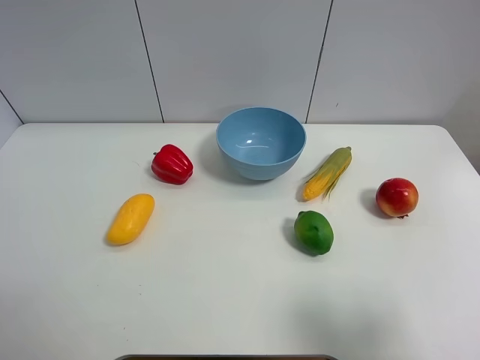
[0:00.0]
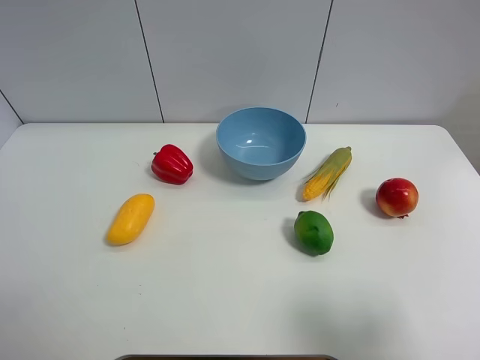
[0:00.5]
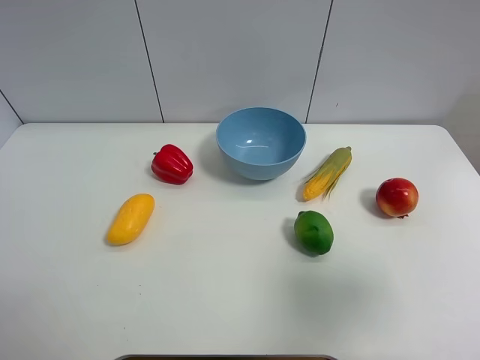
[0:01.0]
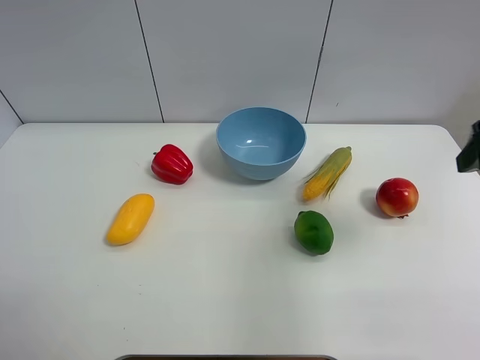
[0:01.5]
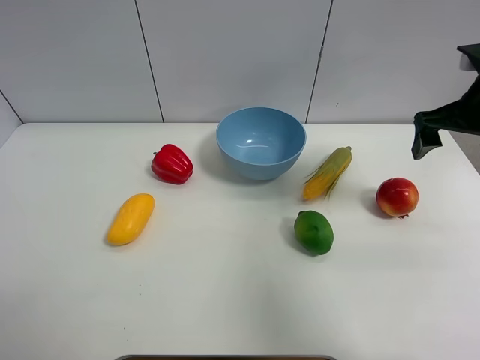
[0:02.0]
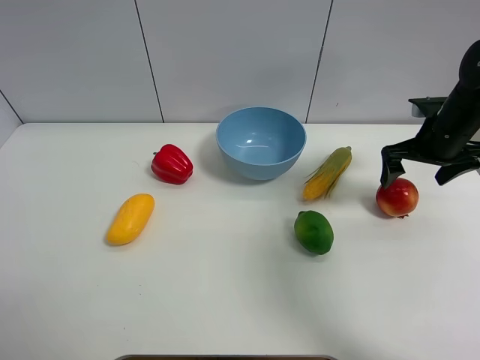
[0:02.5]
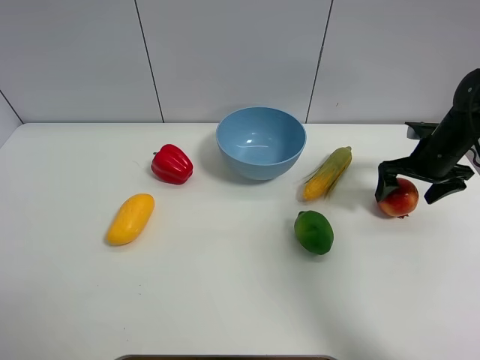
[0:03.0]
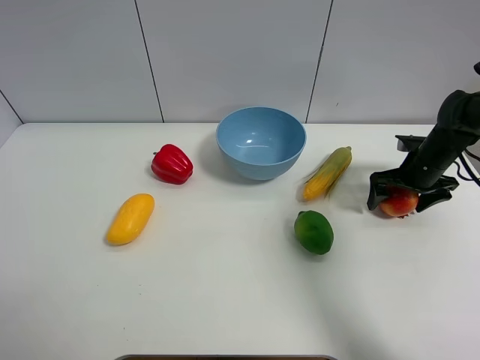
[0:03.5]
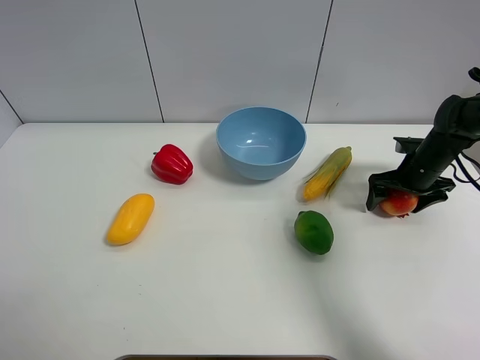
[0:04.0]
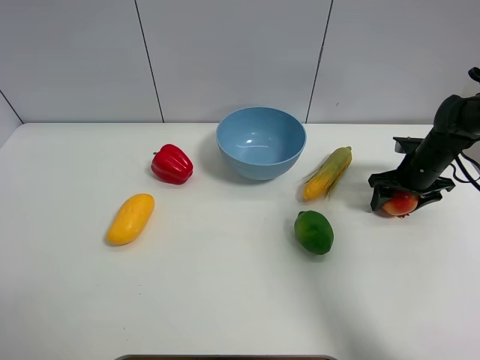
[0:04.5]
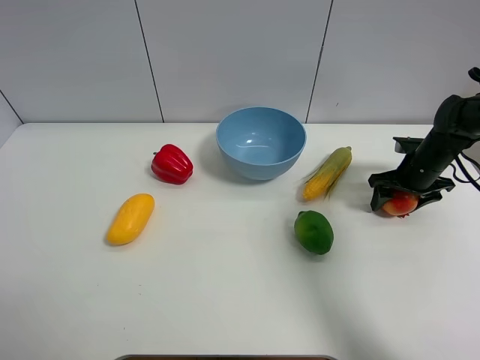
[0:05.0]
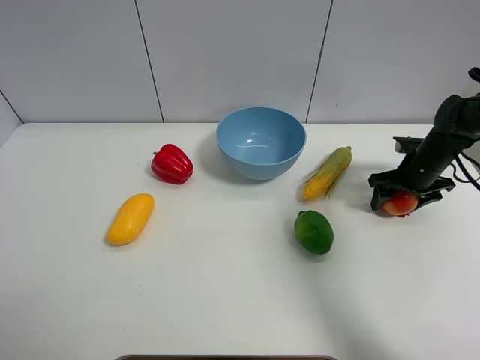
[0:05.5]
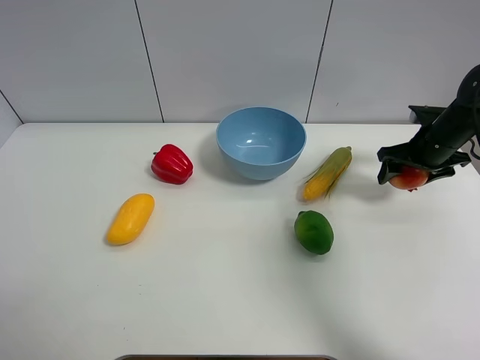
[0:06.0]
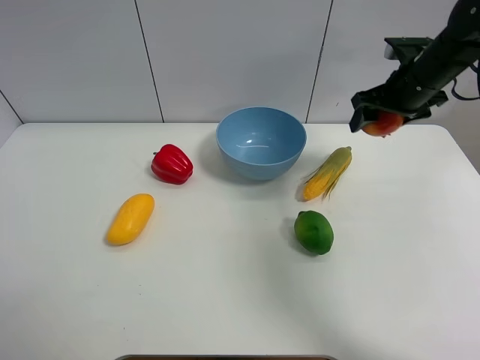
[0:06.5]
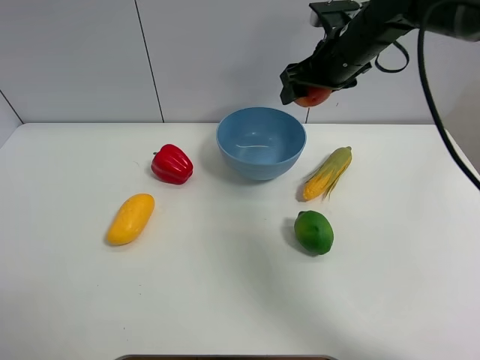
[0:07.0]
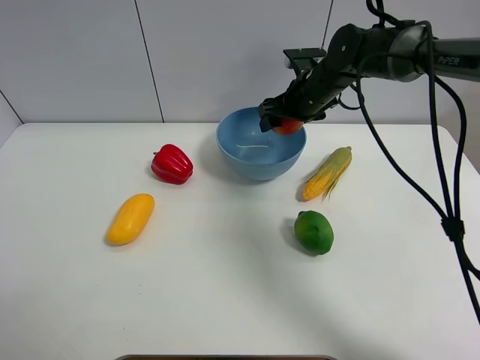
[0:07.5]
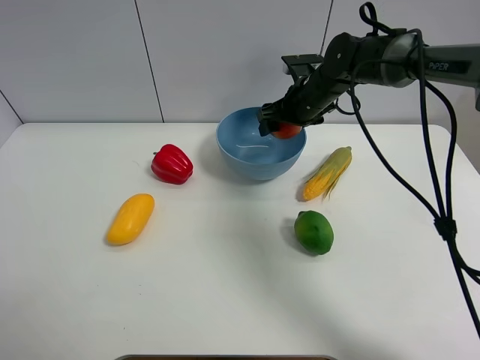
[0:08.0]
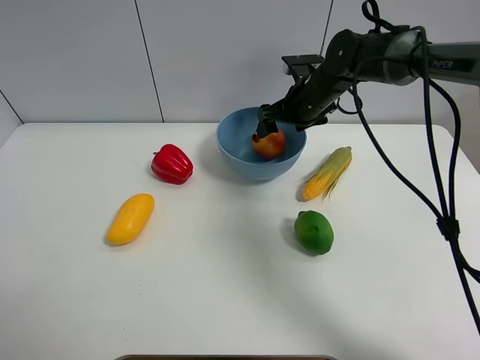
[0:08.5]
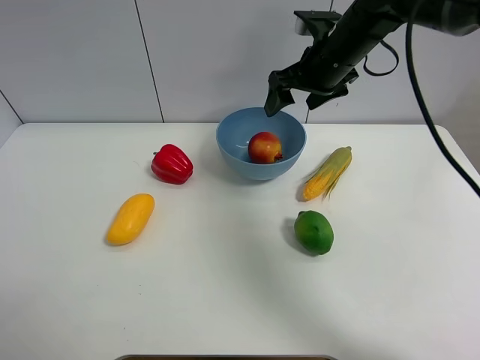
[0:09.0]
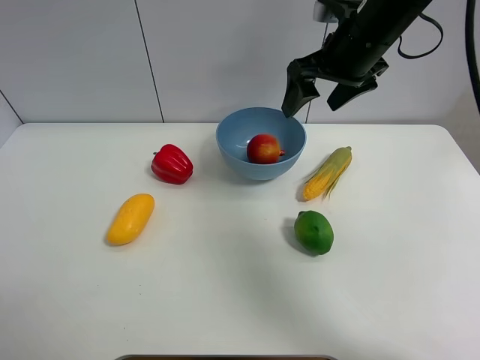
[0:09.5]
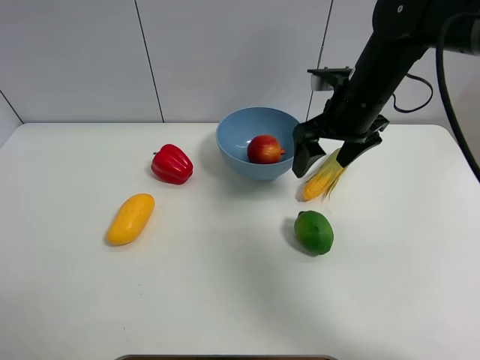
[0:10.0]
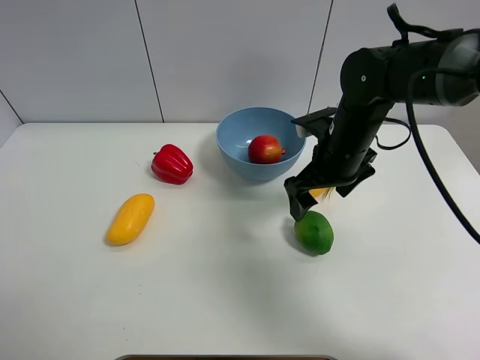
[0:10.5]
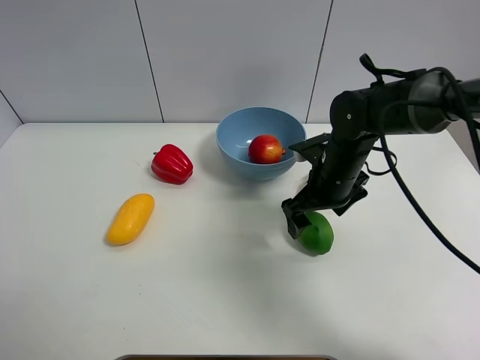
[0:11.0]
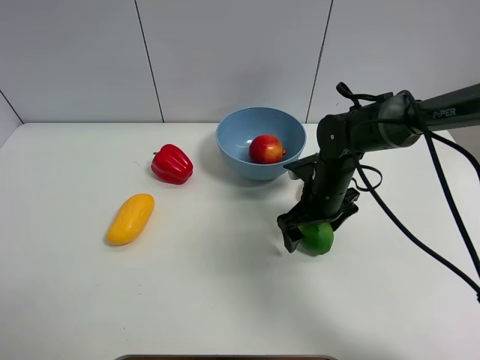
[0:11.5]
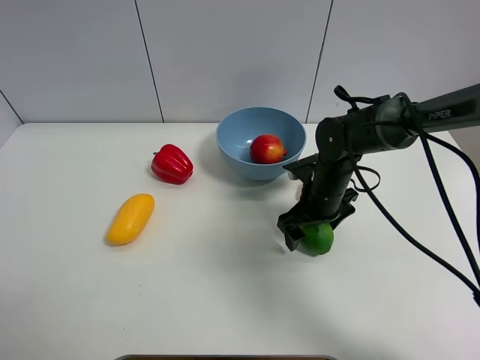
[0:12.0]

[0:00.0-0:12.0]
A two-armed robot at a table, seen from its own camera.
Task of the whole recording: Put the three fruits on the table into a bowl.
Step, 0:00.0 to 0:04.5: Grasp the pomegranate with right gripper.
Step, 0:05.0 to 0:08.0: Place the pomegranate in the blue bowl with right gripper.
0:00.0 to 0:02.0: The right gripper is displaced forward by roughly 30 cm.
0:02.0 to 0:04.0: The right gripper travels downward by approximately 20 cm.
0:04.0 to 0:06.0: The right gripper shifts about 5 cm upward, and closes.
0:06.0 to 0:08.0: The right gripper travels to the left by some 20 cm.
0:08.0 to 0:10.0: The right gripper goes approximately 15 cm backward and upward.
0:10.0 to 0:12.0: The right gripper goes about 15 cm downward.

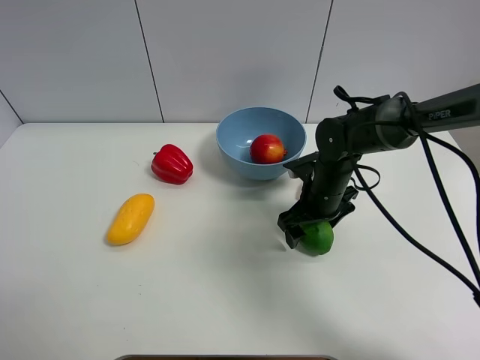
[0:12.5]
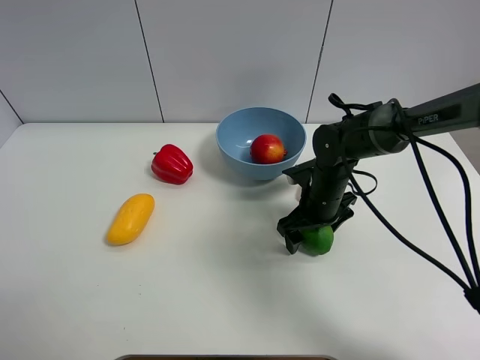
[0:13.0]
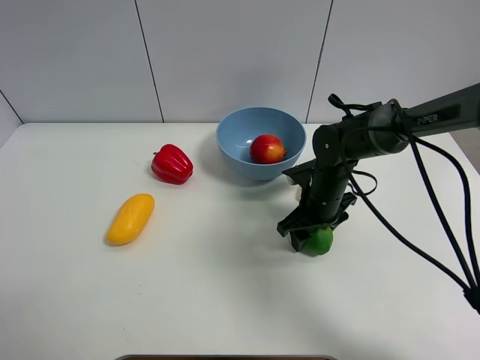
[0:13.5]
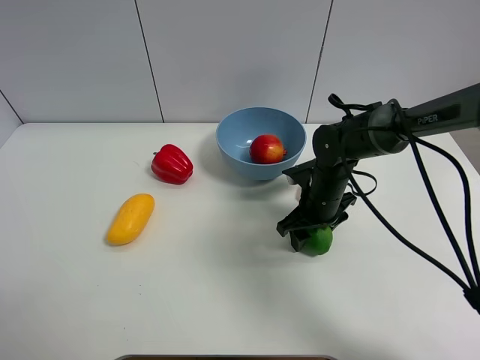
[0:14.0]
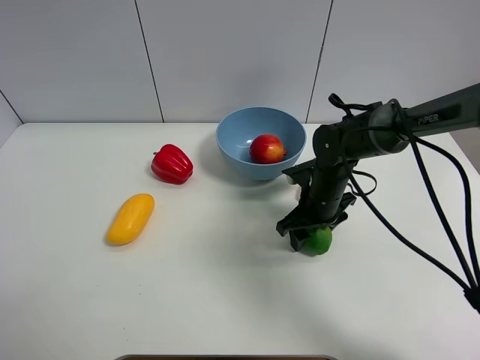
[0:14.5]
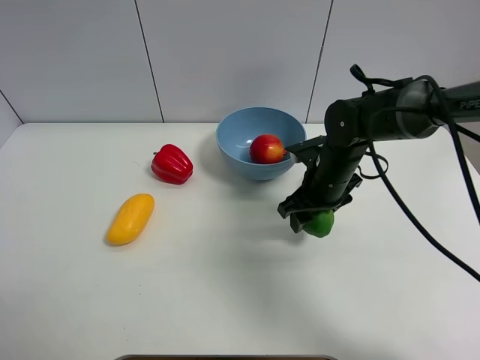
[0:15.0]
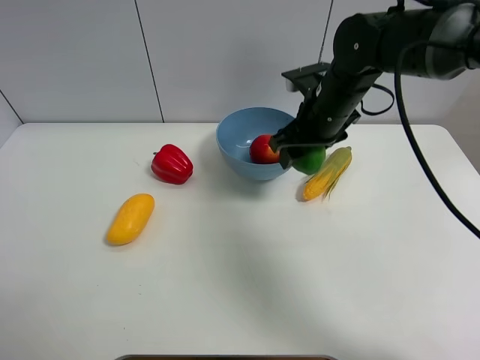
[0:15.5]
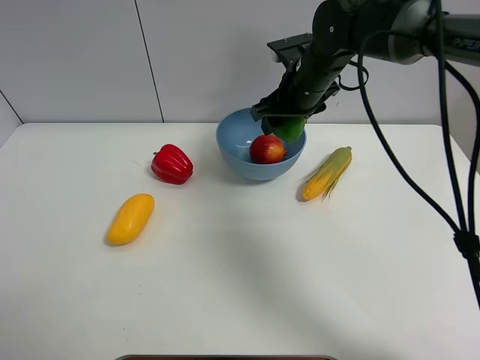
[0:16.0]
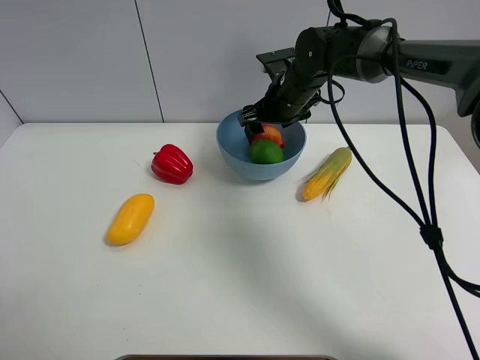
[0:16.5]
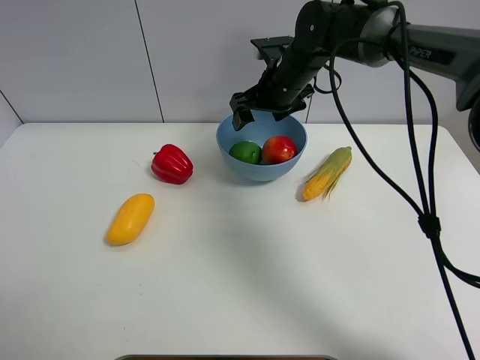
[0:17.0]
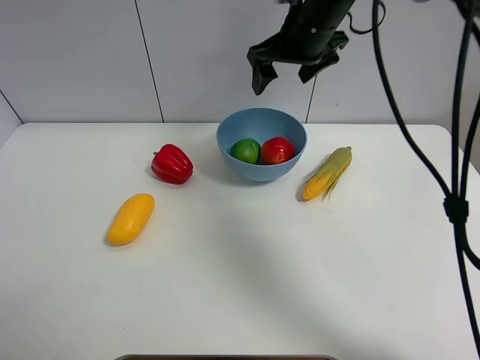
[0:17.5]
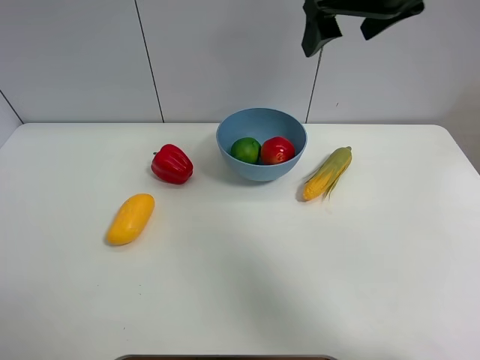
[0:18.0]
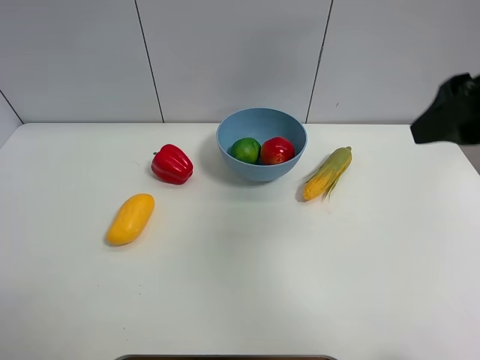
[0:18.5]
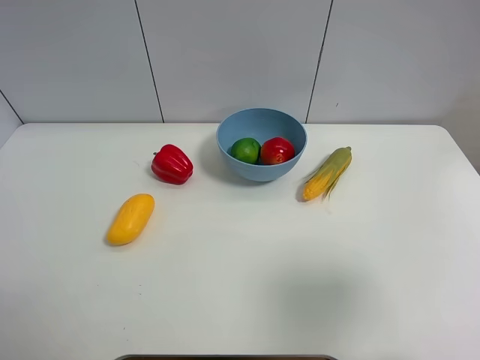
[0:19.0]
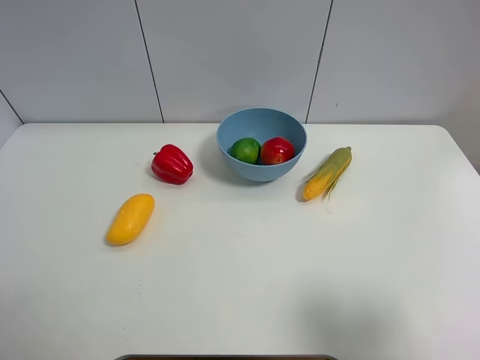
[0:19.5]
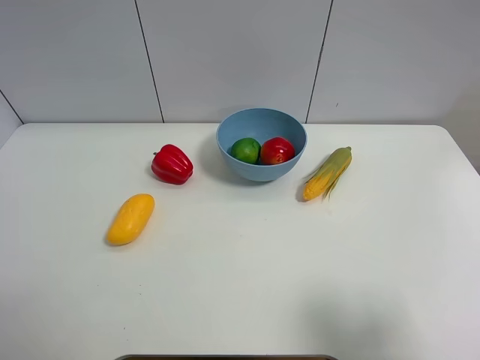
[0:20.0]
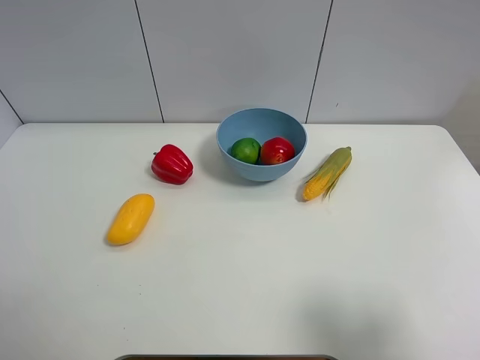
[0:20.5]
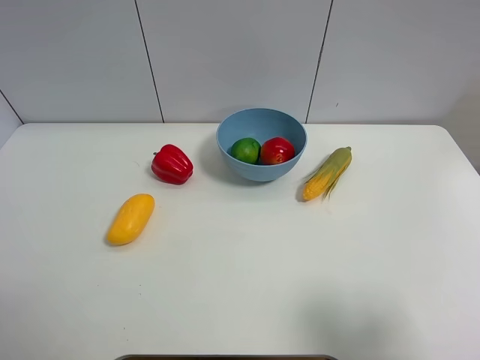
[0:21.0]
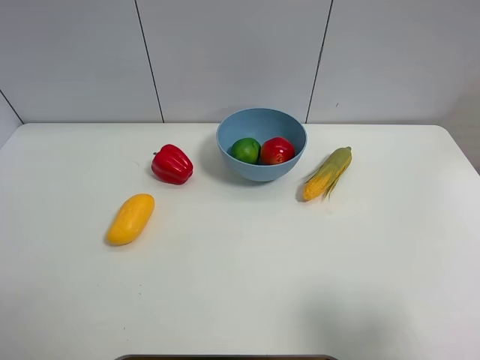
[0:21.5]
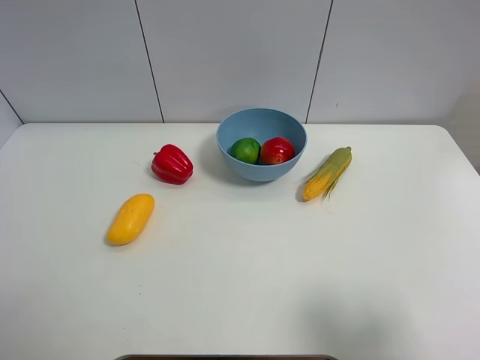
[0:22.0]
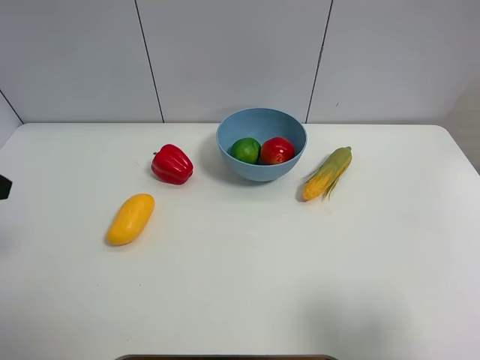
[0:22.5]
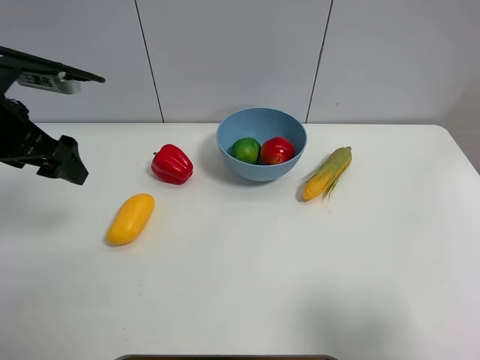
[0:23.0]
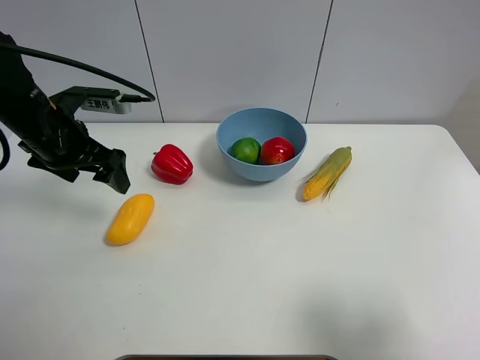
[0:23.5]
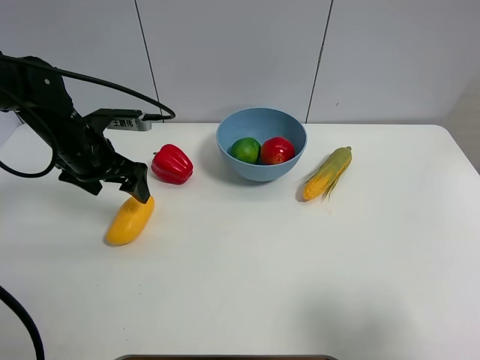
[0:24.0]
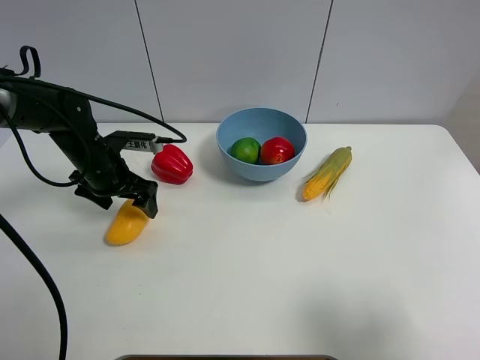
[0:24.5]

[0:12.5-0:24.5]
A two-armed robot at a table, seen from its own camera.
Task of the whole recording: Put the three fruits on the table into a bowl.
Step, 0:14.0 to 0:16.5: Place the green lemon in the blue bowl with right gripper.
0:12.5 to 0:14.5: The right gripper closes its fingers.
0:14.5 to 0:16.5: The right gripper is displaced forward, upward and to the left by some 15 cm, and opens up.
0:16.5 to 0:18.5: The right gripper is displaced backward, upward and to the right by approximately 35 cm.
0:18.5 to 0:20.5: The right gripper is displaced backward, downward and to the right by approximately 20 cm.
0:22.5 to 0:24.5: The left gripper moves downward, forward and to the right, approximately 30 cm.

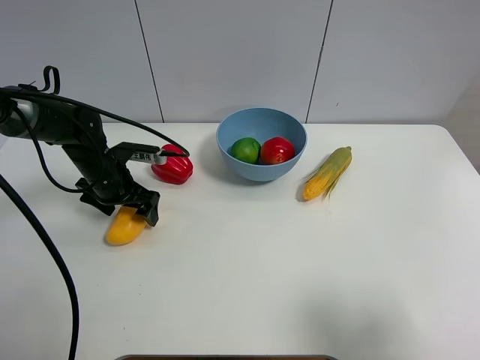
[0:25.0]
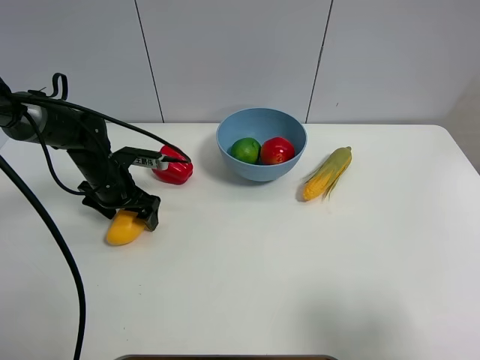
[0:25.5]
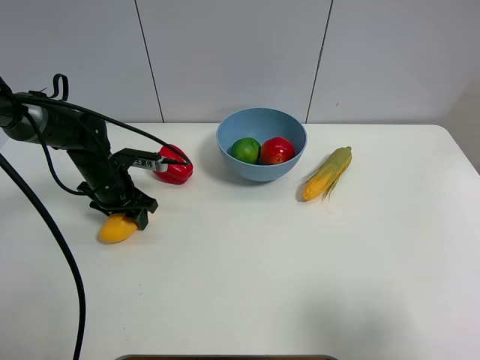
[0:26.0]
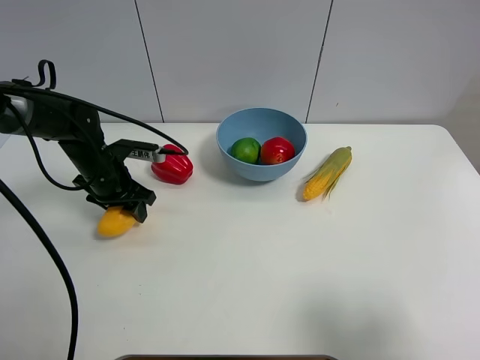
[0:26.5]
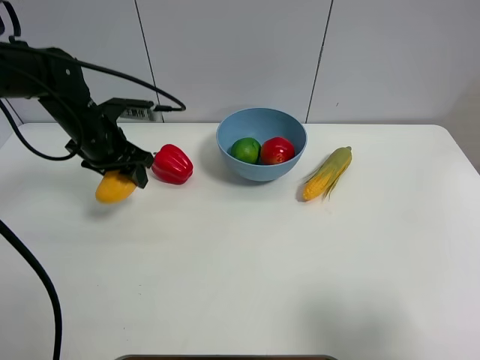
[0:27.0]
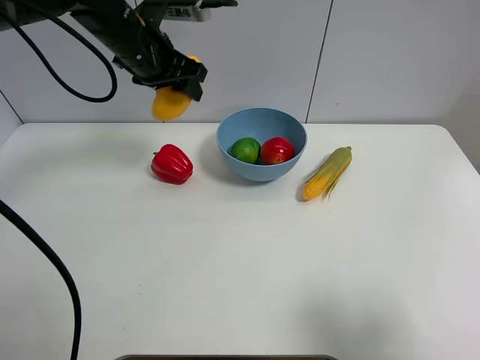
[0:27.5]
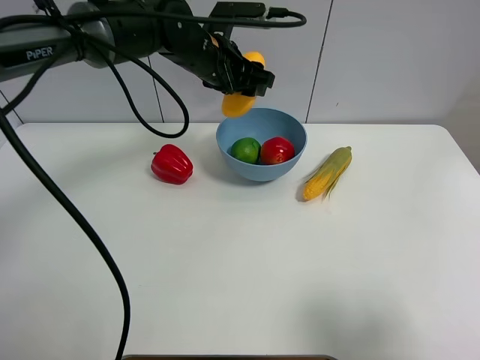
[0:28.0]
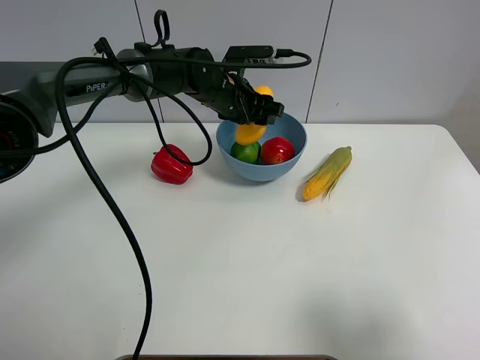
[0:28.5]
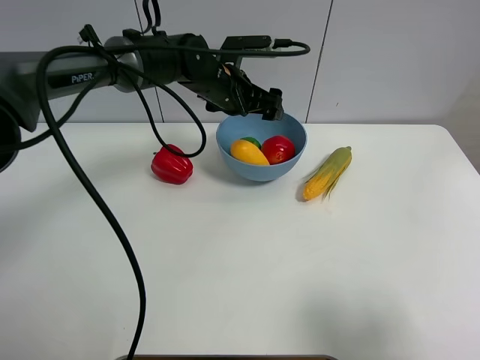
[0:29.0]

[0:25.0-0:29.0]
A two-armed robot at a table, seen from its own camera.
Task of the whole recording: Put the three fruits on the table into a bowl.
Step, 0:26.0 to 0:28.5: Place the mango in the blue bowl with left gripper.
0:25.0 to 0:27.0: The left gripper goes some 10 cm upward, and closes.
0:27.0 to 0:29.0: The left gripper is displaced to the right by about 20 cm, and opens up.
